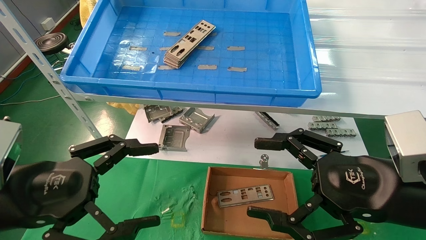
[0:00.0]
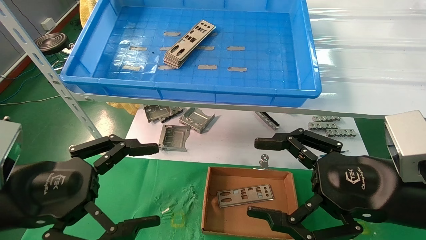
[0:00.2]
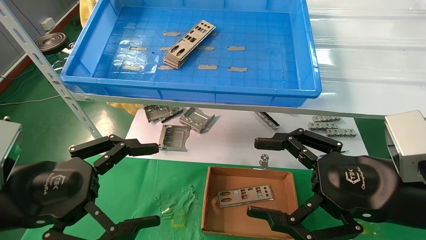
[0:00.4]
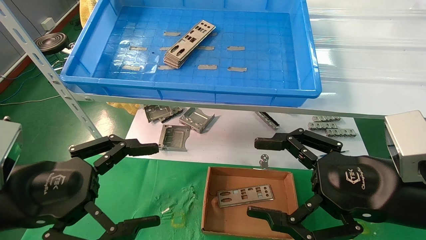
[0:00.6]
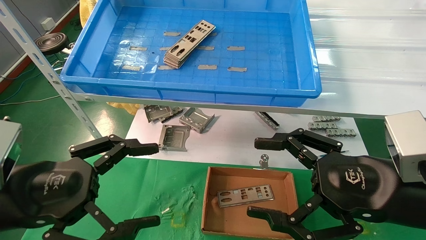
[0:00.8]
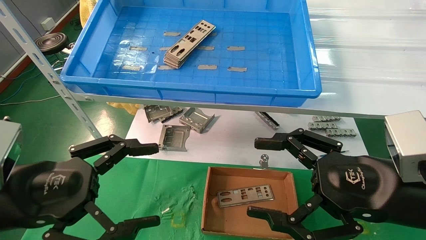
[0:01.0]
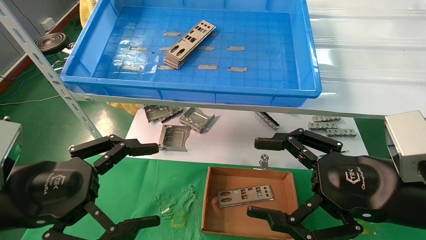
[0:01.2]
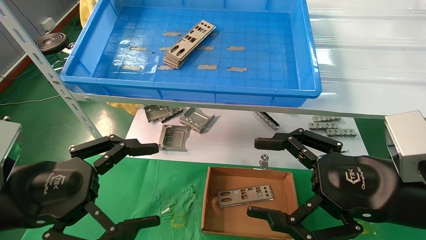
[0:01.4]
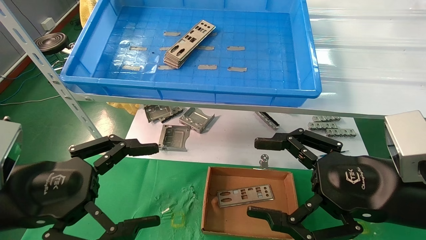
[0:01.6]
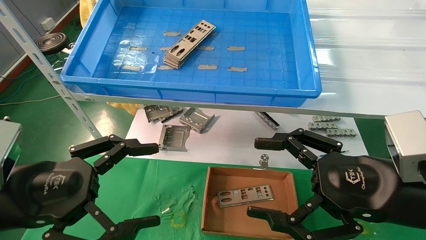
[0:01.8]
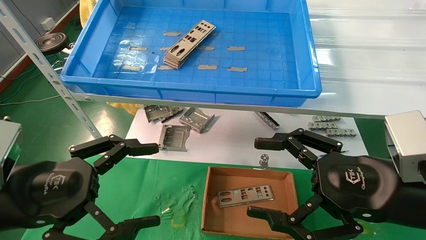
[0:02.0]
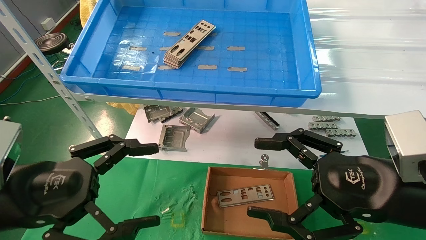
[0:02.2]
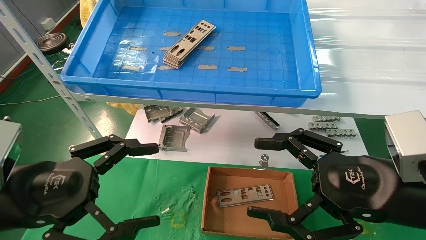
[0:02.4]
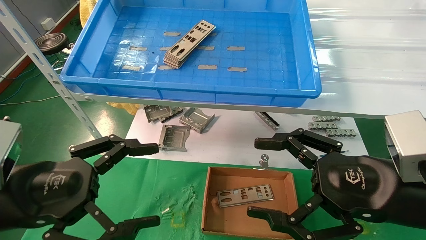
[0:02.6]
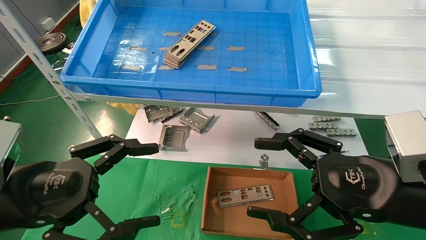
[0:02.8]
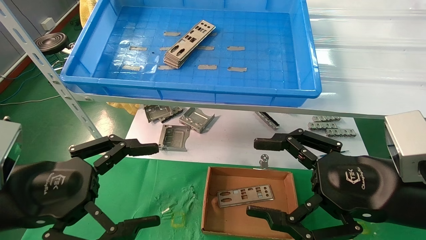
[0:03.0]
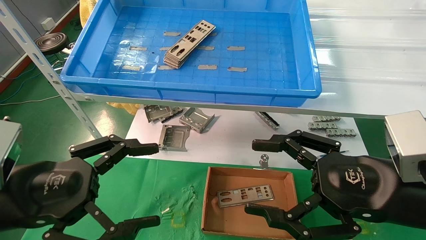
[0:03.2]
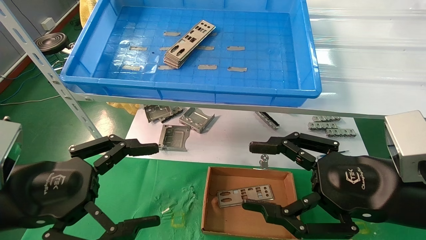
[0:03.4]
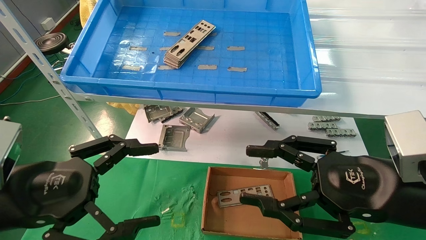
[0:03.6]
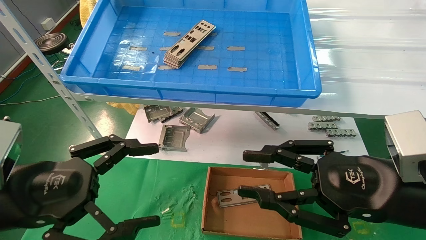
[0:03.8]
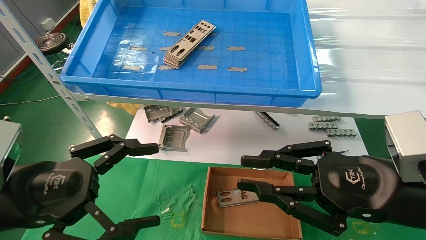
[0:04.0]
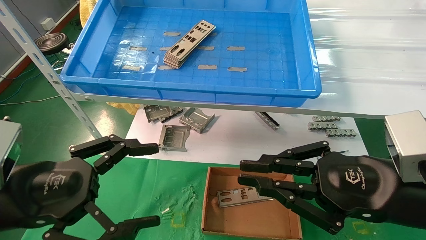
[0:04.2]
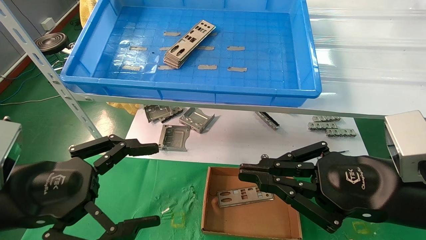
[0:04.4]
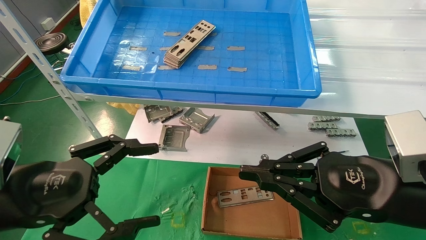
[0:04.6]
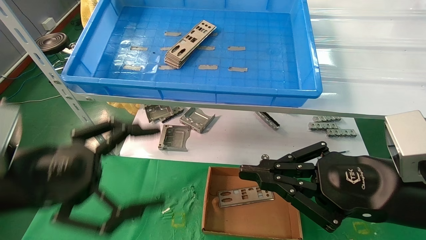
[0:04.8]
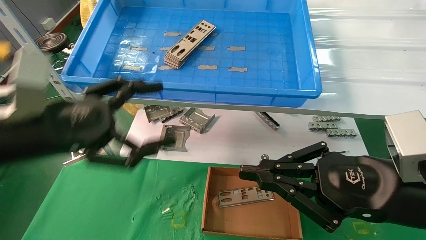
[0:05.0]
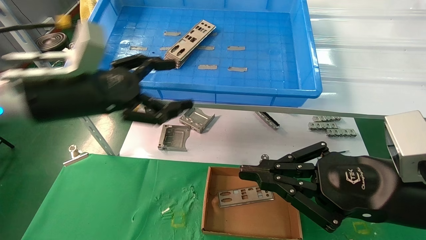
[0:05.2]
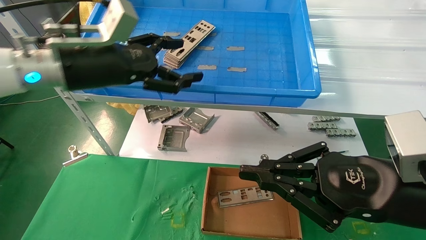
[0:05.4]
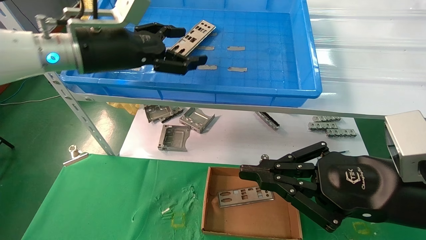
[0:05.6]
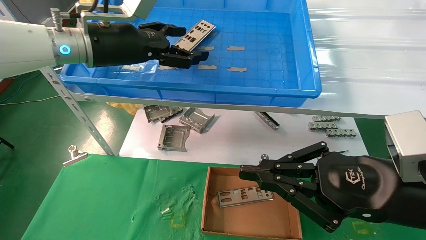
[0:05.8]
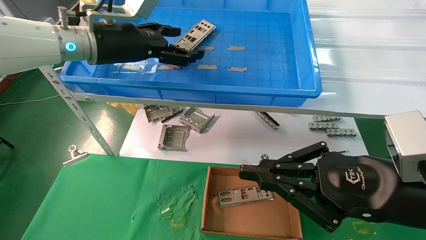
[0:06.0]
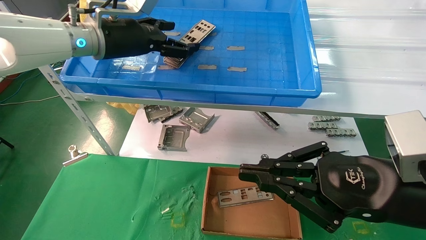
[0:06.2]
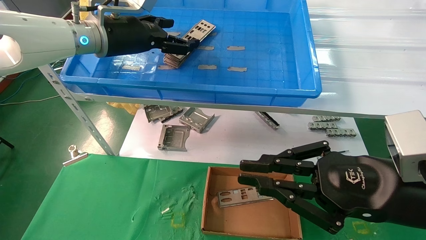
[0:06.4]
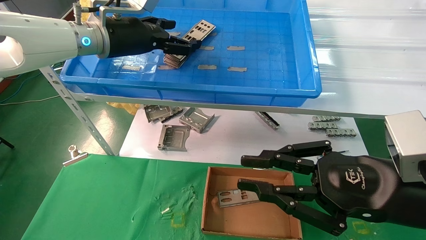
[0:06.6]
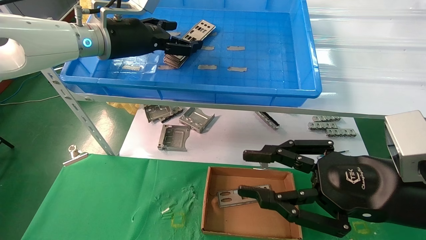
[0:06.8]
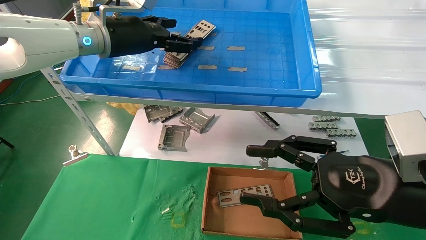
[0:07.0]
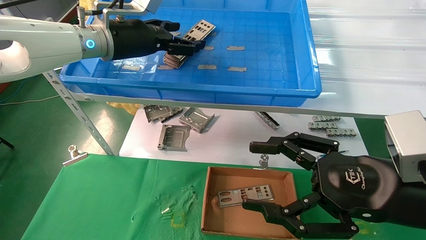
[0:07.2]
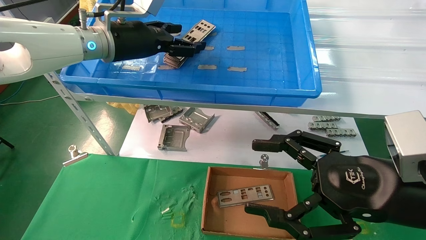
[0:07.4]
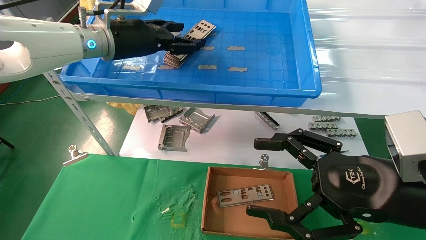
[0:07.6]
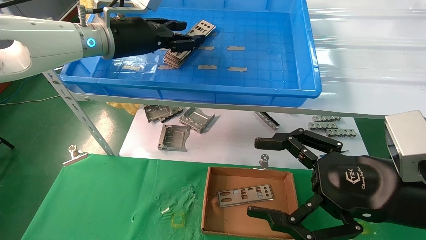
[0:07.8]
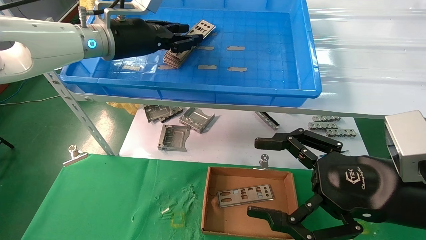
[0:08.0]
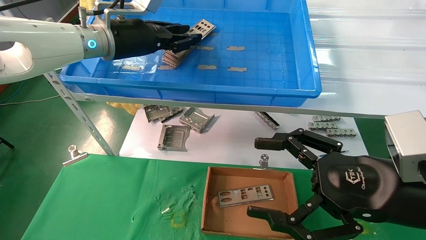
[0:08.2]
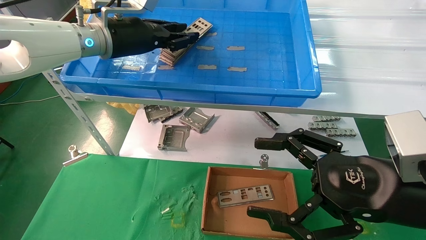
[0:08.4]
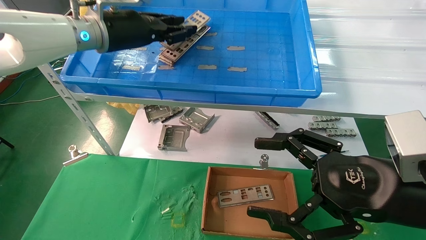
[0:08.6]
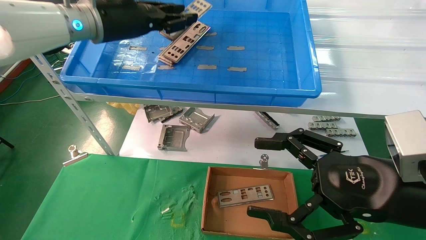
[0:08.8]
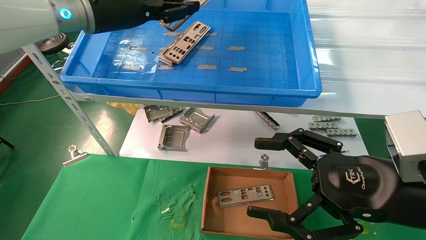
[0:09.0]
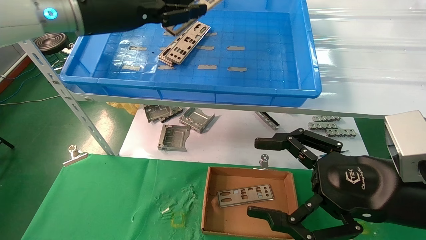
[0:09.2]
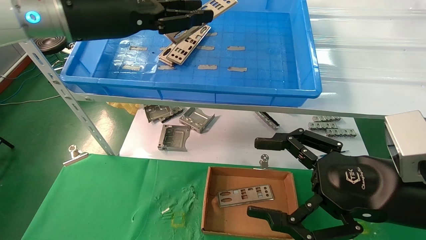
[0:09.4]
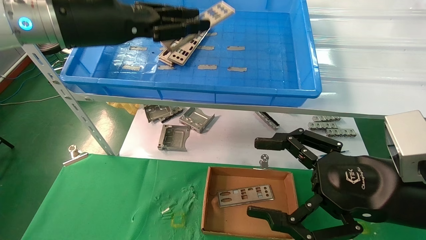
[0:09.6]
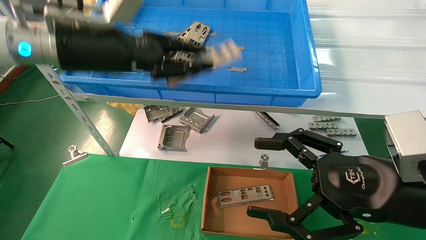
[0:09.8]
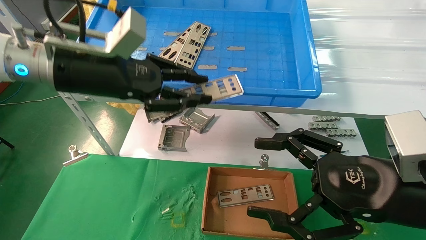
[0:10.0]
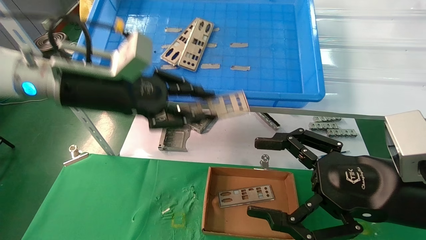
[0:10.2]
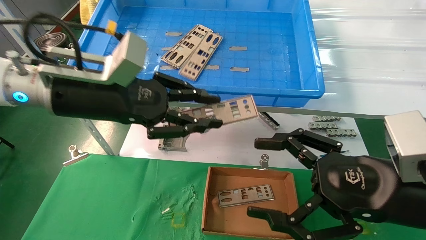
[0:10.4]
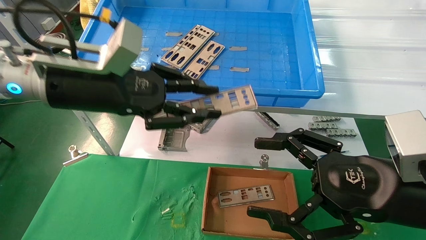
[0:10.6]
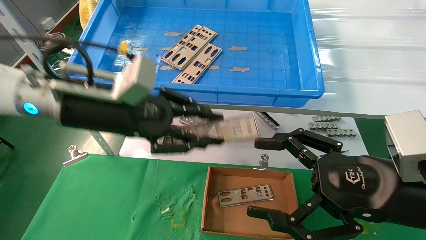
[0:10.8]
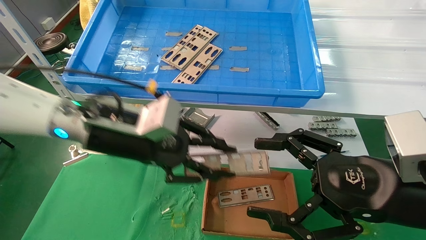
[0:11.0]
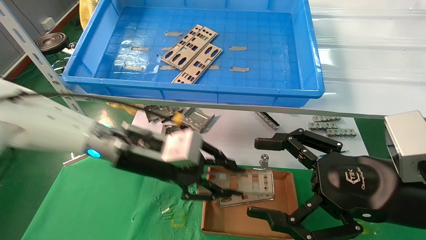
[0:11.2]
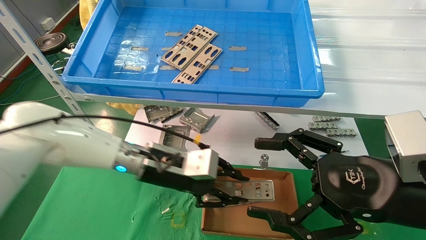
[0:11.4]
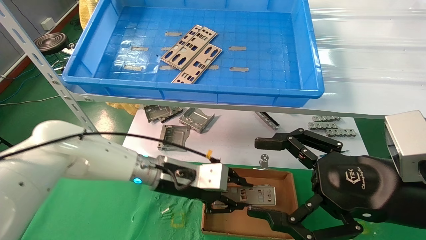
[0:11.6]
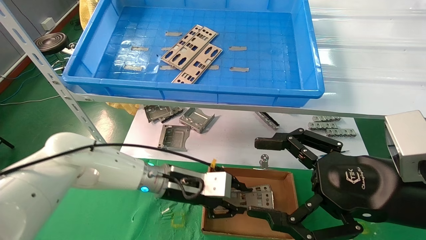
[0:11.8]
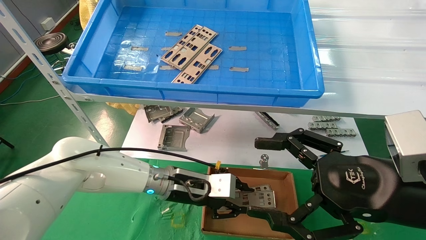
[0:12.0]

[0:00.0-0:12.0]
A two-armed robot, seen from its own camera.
Task of the whole recording: pick up the parts on the tray and put them in the cardboard box.
Step, 0:05.0 to 0:08.4: Pick up the IO bracket from the container box.
0:00.0 to 0:03.0: Both grippers stay about where they are.
0:03.0 to 0:04.4: The right gripper closes.
0:04.4 to 0:06.0: The left gripper is displaced forward and upward by about 30 cm.
0:06.0 to 0:07.6: The right gripper opens its fingers.
0:07.6 to 0:09.0: The left gripper shifts by about 5 cm, and closes.
0:09.0 to 0:10.4: The left gripper shifts some 15 cm downward and backward.
0:10.4 to 0:12.0: The left gripper is displaced downward and to the right by roughly 25 cm.

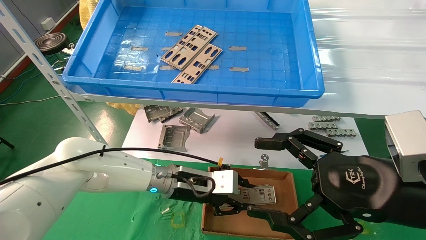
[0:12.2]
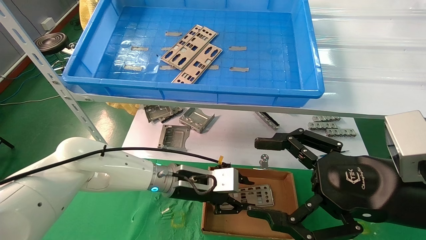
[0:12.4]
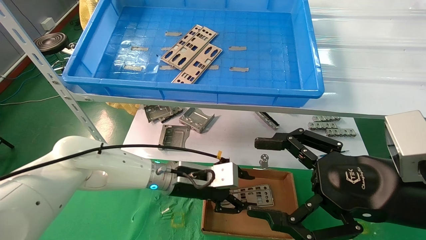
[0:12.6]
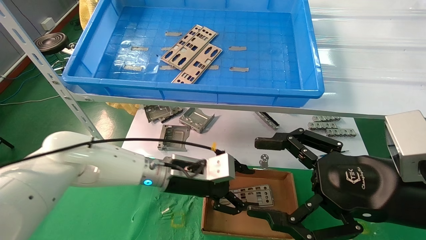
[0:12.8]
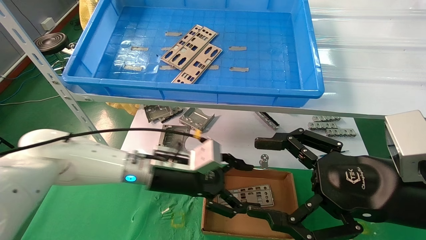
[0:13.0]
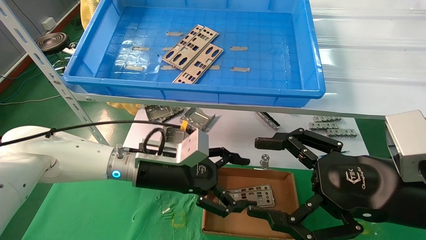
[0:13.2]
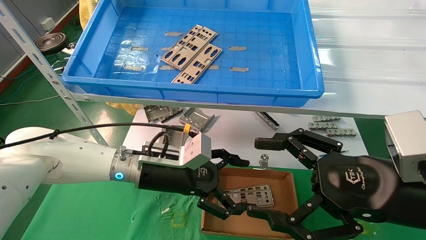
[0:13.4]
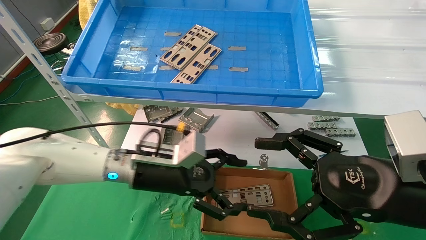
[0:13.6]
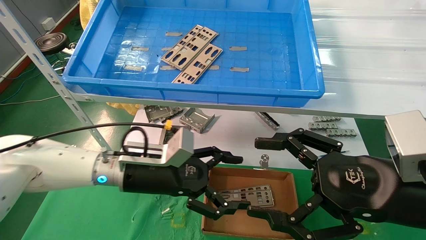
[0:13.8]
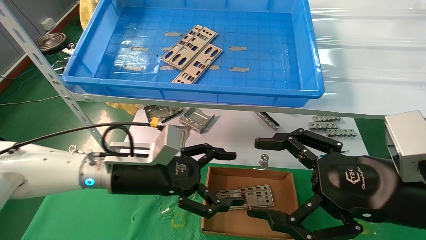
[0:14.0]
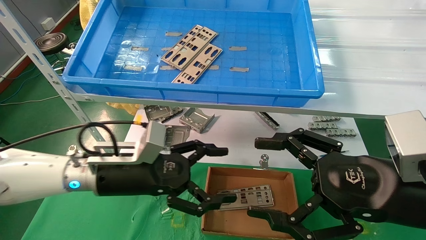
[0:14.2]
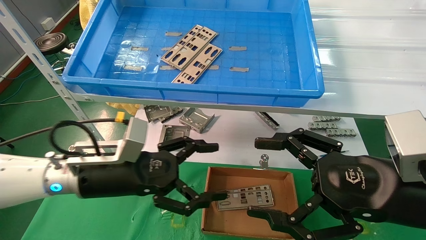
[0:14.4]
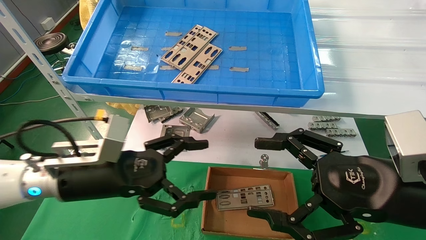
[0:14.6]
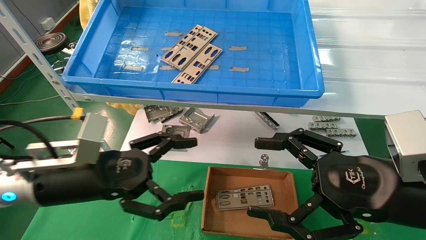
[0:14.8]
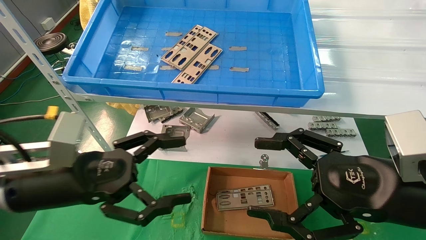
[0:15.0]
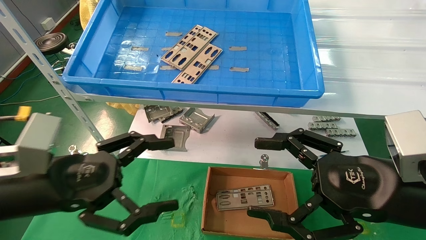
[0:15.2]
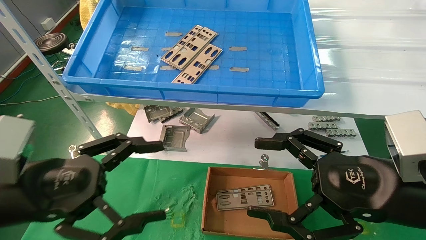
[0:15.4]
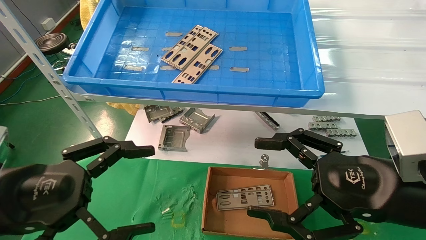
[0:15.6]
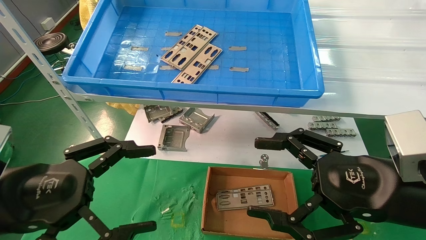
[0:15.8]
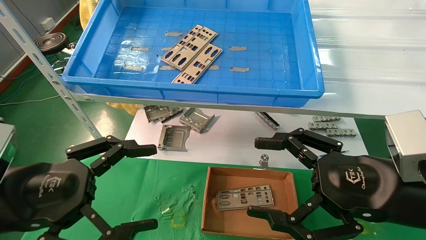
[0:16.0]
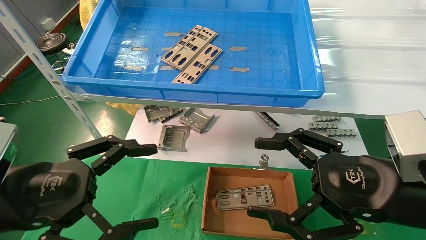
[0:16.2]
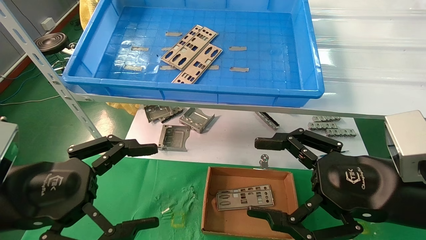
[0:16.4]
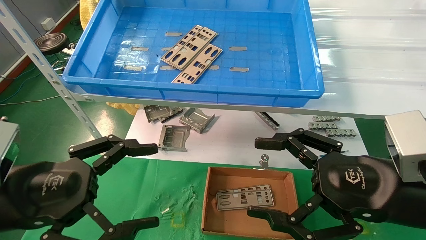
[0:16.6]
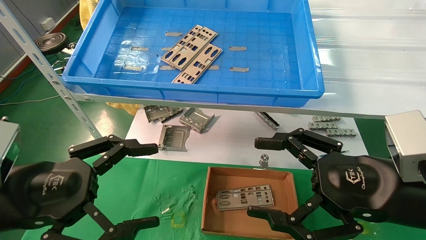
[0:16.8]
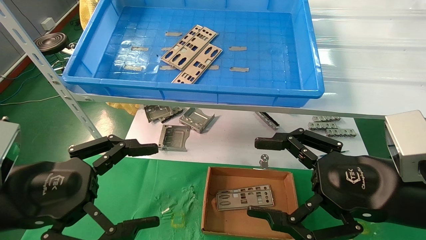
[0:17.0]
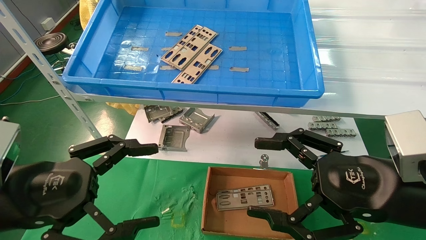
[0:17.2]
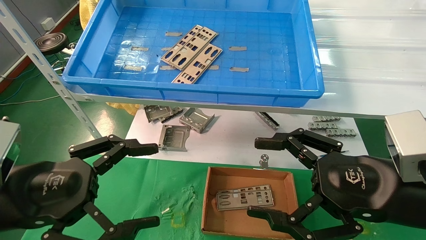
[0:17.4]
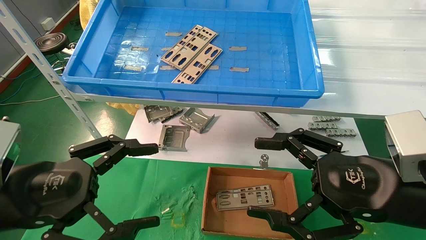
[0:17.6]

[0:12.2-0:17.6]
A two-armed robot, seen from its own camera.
Task of the whole recording: pick up the parts on the tray and put them in the cardboard box.
0:12.2 to 0:13.6: The left gripper is displaced to the left and upward by roughly 5 cm, and opens.
0:13.6 to 0:15.0: The left gripper heads to the left and backward, covering approximately 15 cm.
0:15.0 to 0:16.2: The left gripper moves backward, approximately 5 cm.
0:16.2 to 0:17.6: Both grippers stay about where they are.
